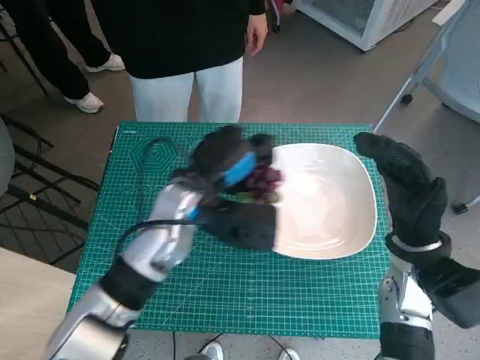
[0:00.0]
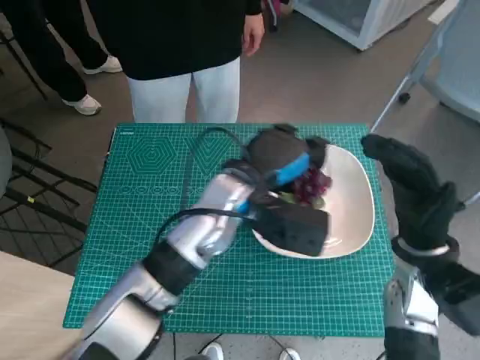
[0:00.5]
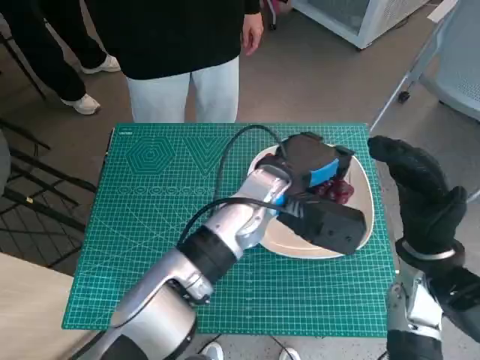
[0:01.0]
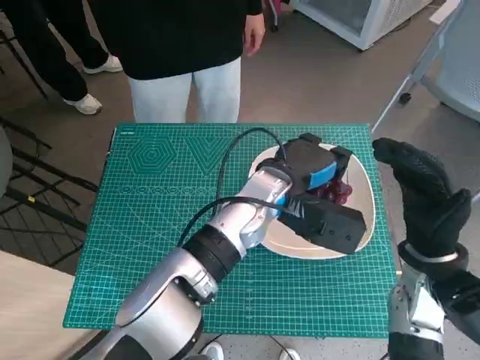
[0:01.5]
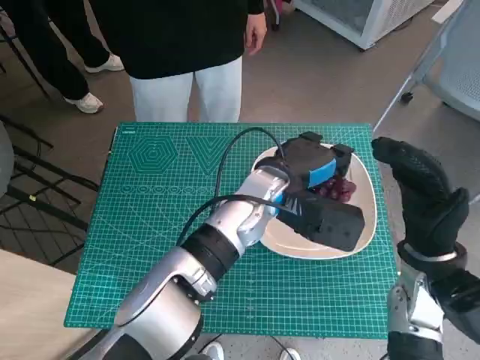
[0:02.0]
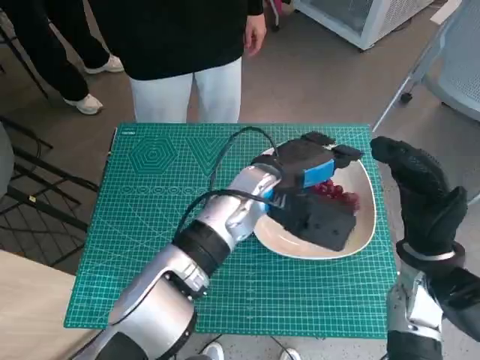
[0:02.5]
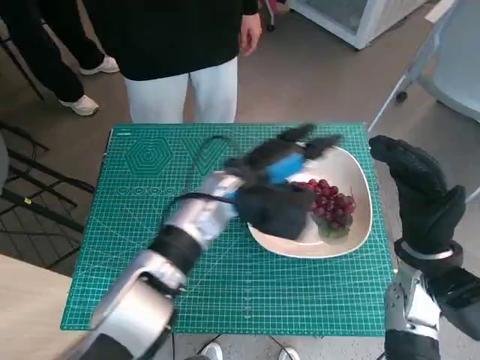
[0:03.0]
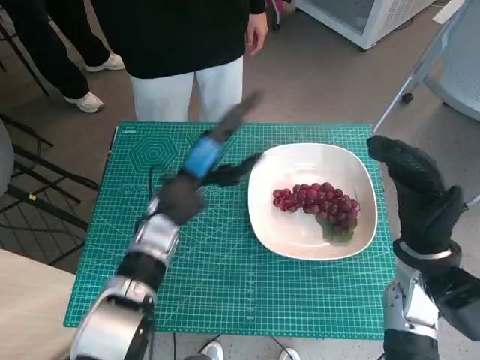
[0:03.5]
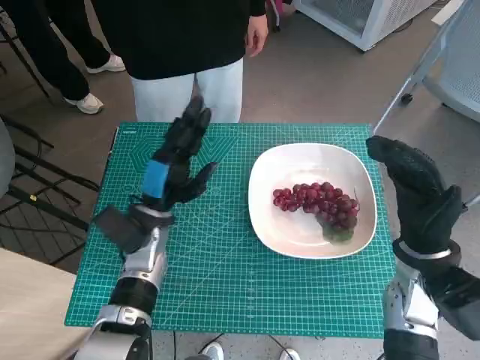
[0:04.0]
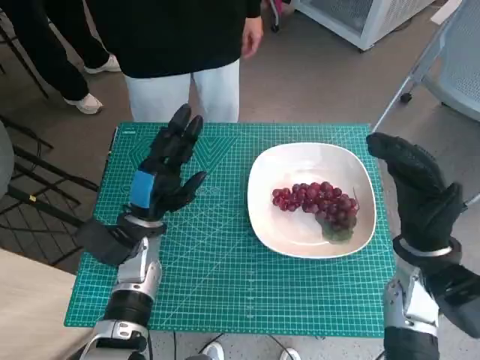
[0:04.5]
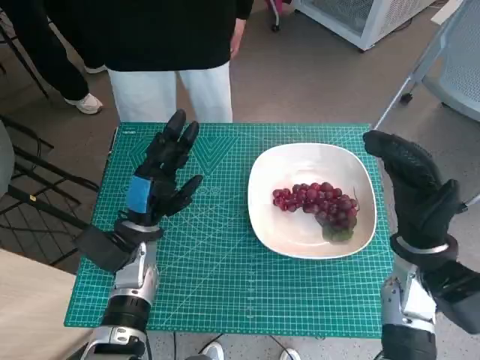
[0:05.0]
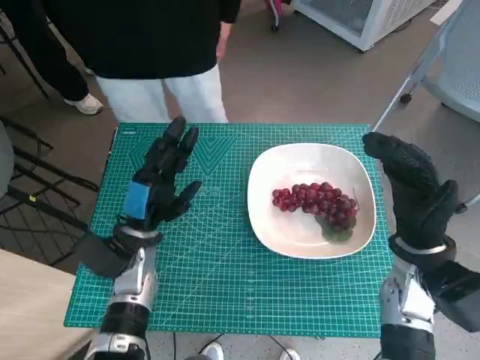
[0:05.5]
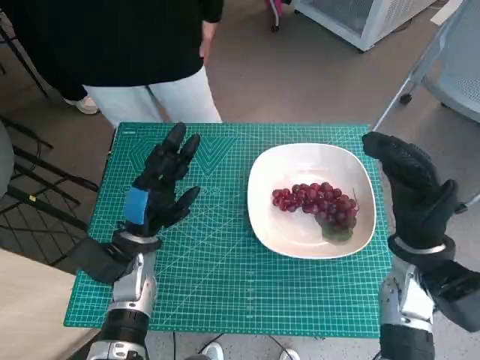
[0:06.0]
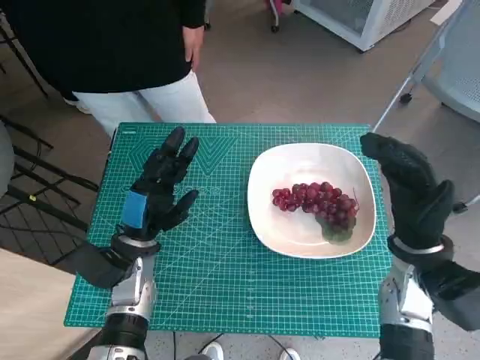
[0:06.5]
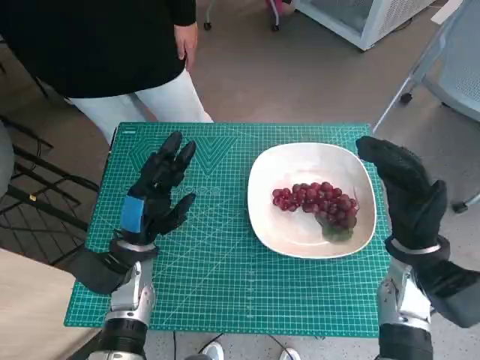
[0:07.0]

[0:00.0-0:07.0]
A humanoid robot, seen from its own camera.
Task of the whole recording: Pick up the grapes and put them on the plate.
Step, 0:00.0 to 0:02.5: Place the grapes in the plate with left hand.
0:00.0 to 0:02.0: The left hand travels to the right by approximately 10 cm.
0:02.0 to 0:03.5: The left hand goes approximately 15 cm to the left.
0:03.5 to 0:05.0: The left hand moves to the left and backward, some 10 cm.
0:05.0 to 0:07.0: The hands stay close to where they were, moving slightly.

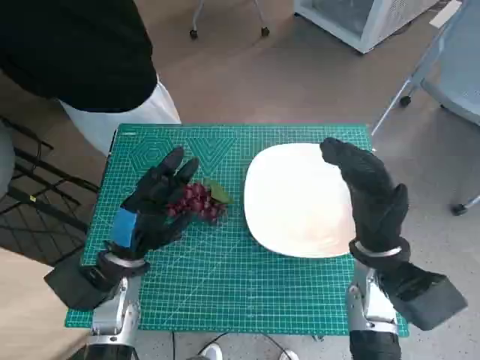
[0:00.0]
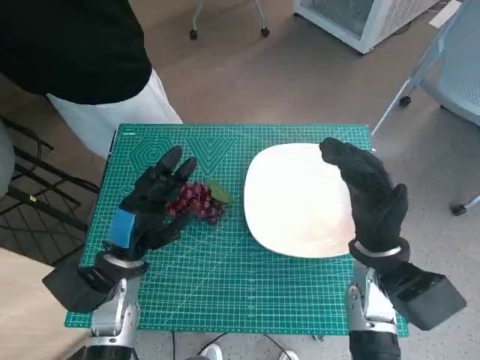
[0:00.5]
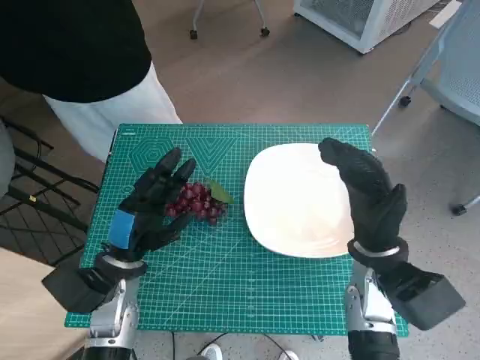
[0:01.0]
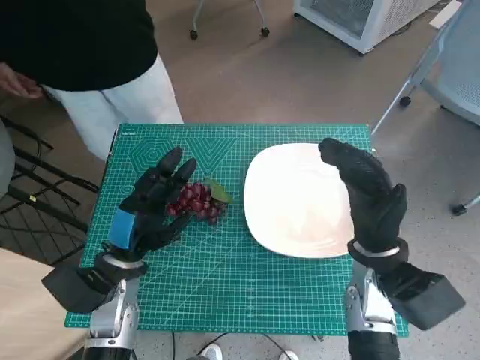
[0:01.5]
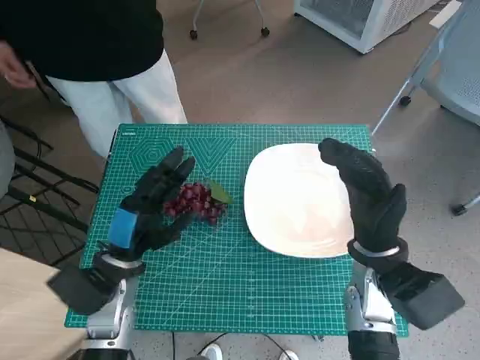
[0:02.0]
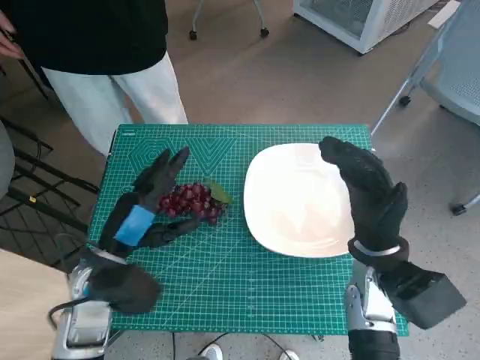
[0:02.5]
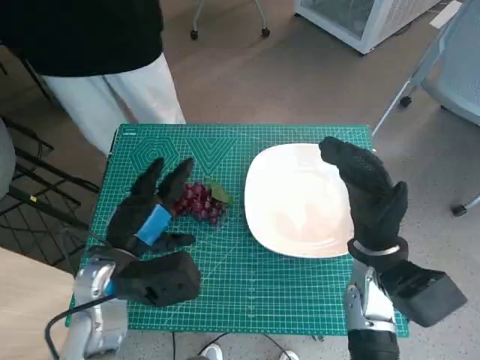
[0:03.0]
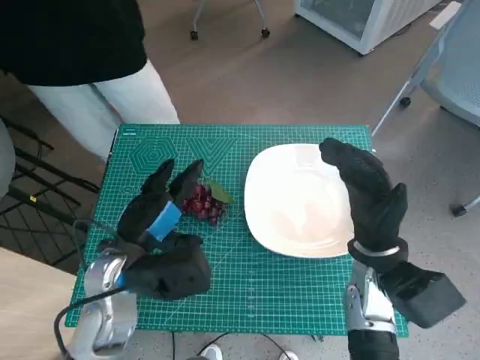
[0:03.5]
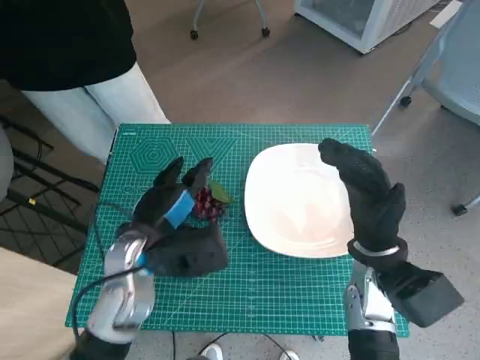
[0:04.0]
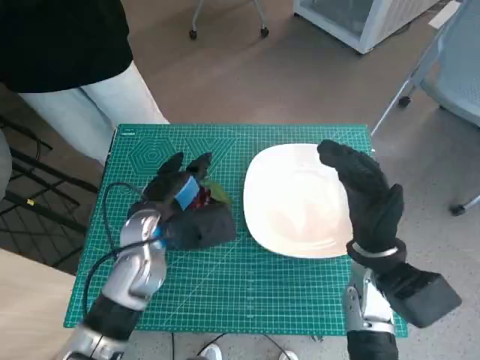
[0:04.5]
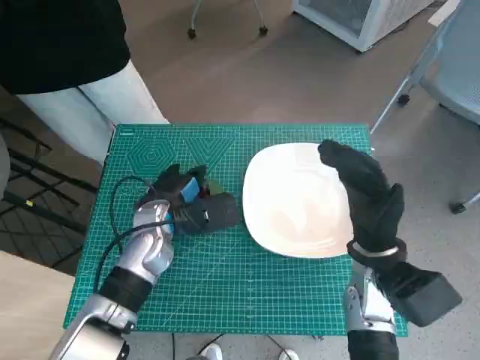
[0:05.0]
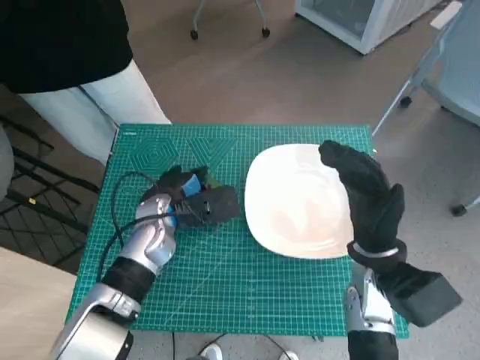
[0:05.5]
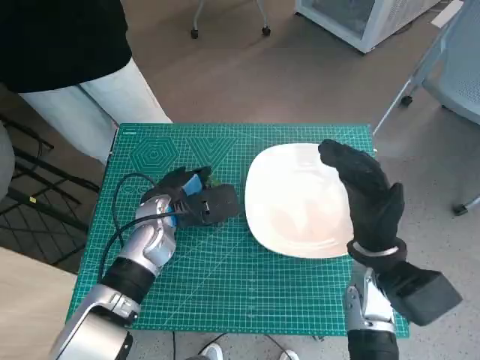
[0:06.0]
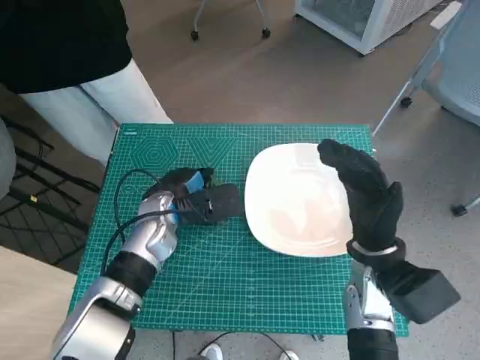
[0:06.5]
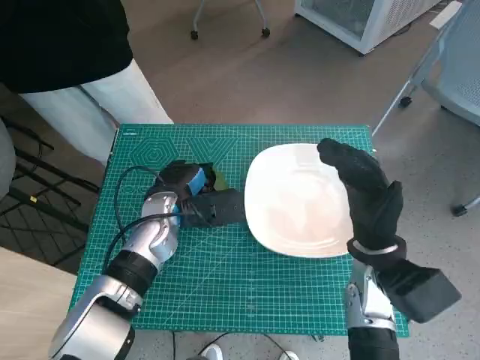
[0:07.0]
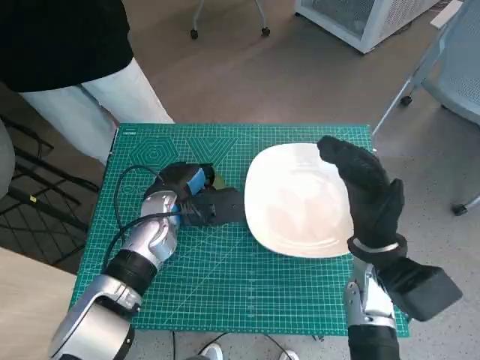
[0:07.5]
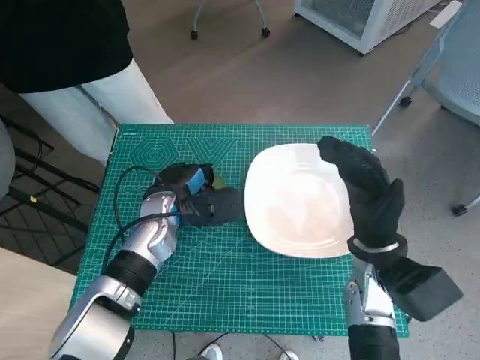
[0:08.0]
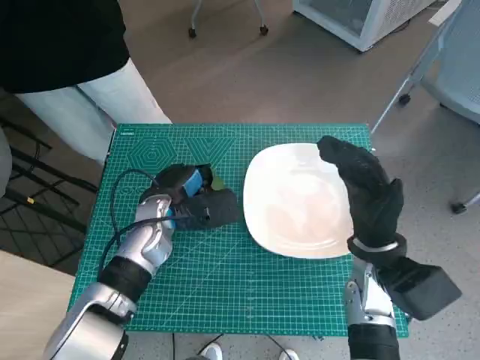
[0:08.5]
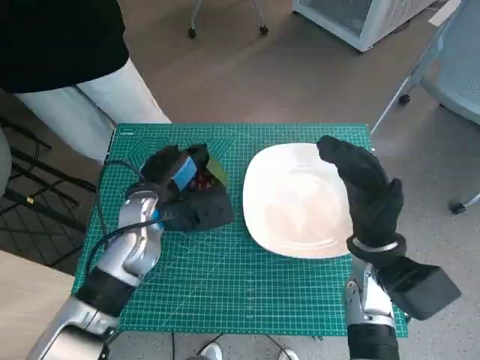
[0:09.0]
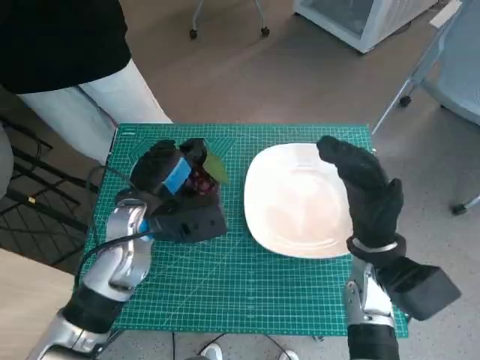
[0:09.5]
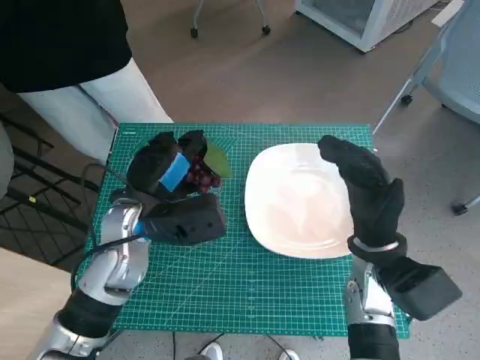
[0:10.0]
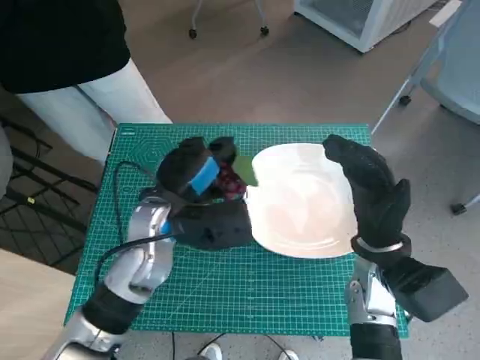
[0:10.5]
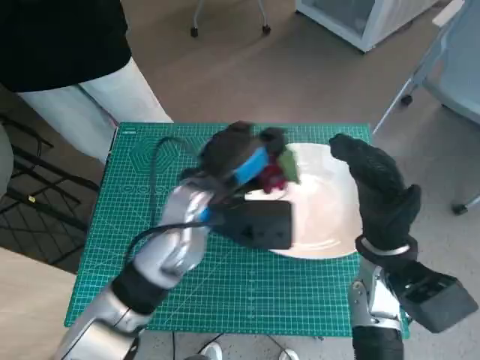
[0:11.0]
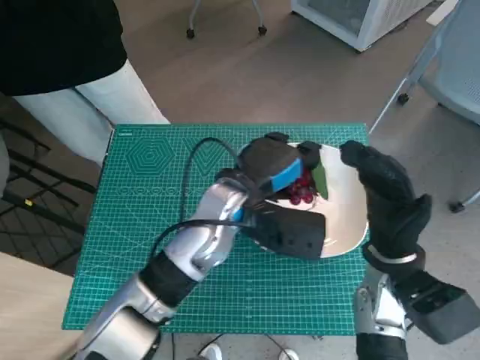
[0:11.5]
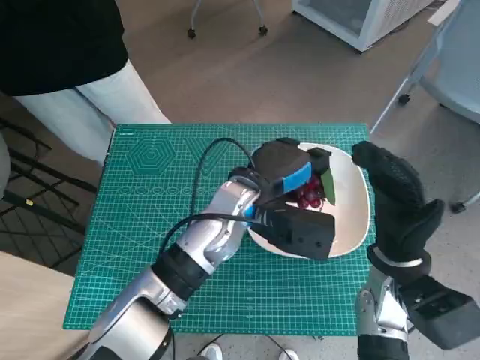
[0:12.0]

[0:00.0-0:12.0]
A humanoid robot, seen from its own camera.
Task of the whole recording: Pick up the grapes and put them on the plate.
Step, 0:00.0 to 0:05.0: Grasp the grapes with left hand.
0:02.0 to 0:04.0: The left hand heads upward, covering roughly 5 cm.
0:04.0 to 0:06.0: The left hand is displaced forward by some 10 cm.
0:06.0 to 0:08.0: There are only small adjustments of the hands.
0:08.0 to 0:10.0: The left hand heads upward and backward, covering some 10 cm.
0:10.0 to 0:12.0: The left hand shifts roughly 15 cm to the right.

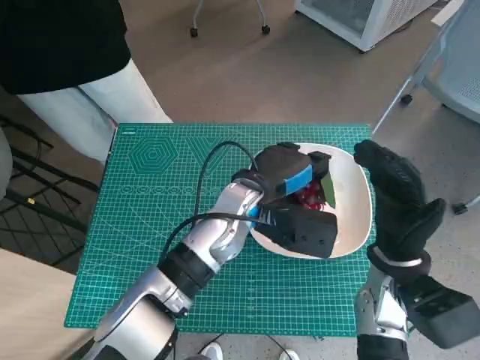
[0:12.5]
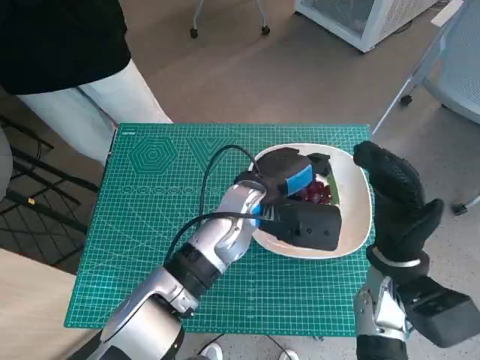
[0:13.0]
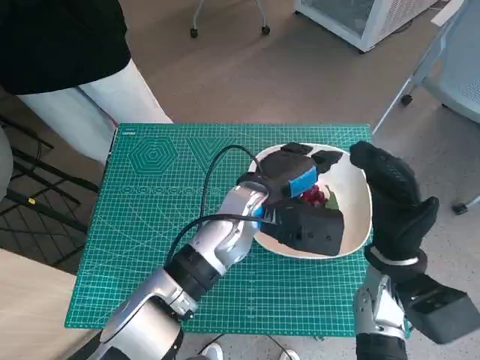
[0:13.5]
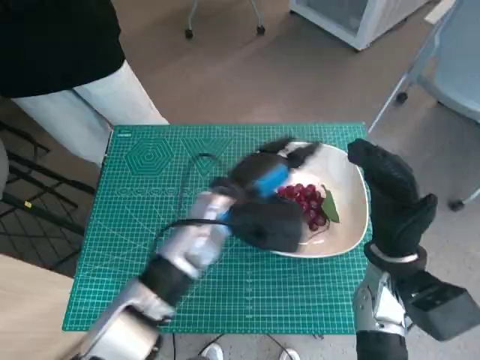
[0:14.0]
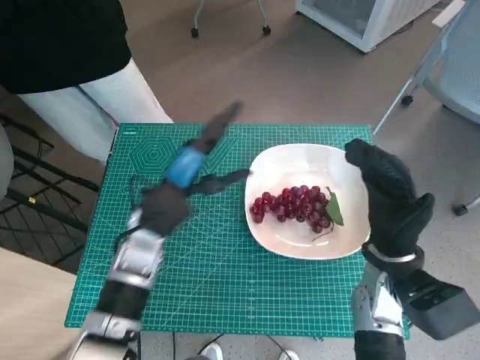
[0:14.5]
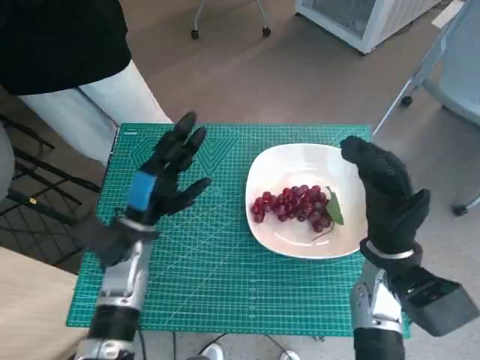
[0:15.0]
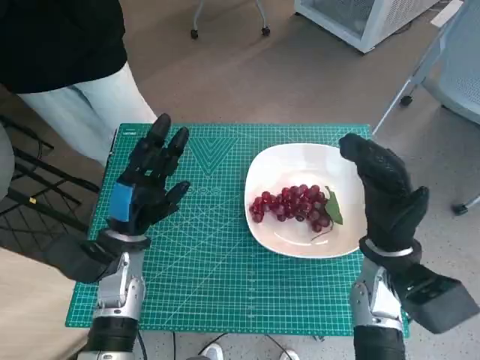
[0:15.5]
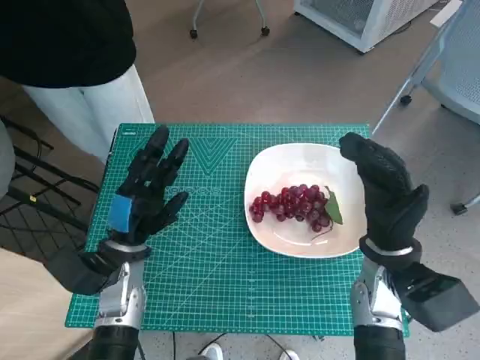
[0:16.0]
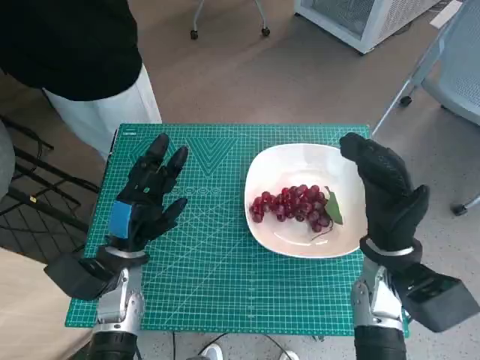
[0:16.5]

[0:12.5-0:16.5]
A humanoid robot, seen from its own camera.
Task of the whole recording: Pick up the grapes and put them on the plate.
0:12.5 to 0:14.5: The left hand heads to the left, covering roughly 10 cm.
0:14.5 to 0:16.5: The left hand heads downward, to the left and backward, covering approximately 10 cm.

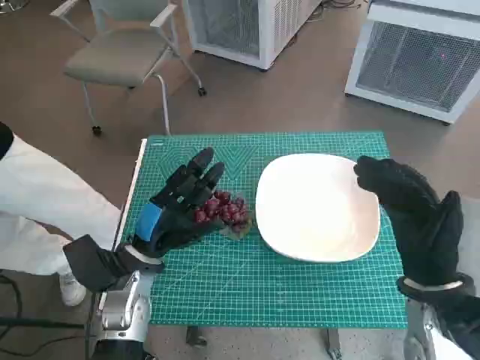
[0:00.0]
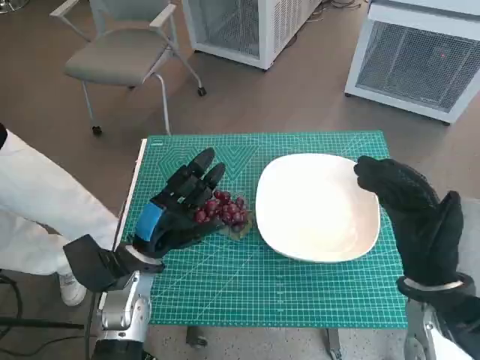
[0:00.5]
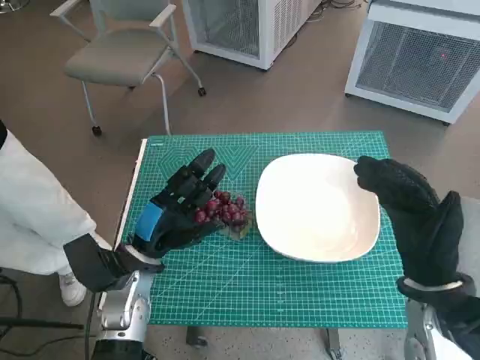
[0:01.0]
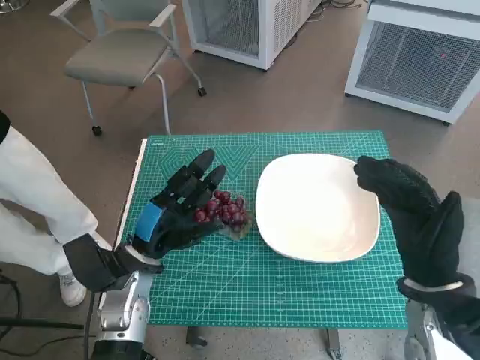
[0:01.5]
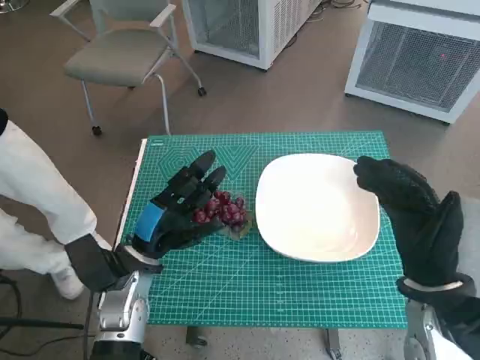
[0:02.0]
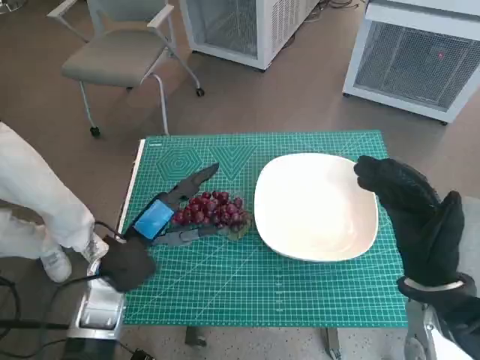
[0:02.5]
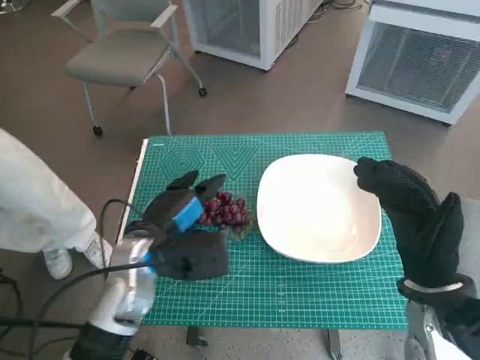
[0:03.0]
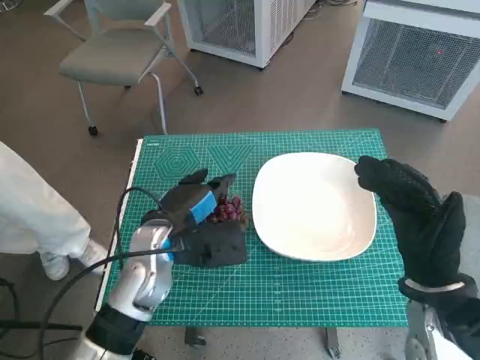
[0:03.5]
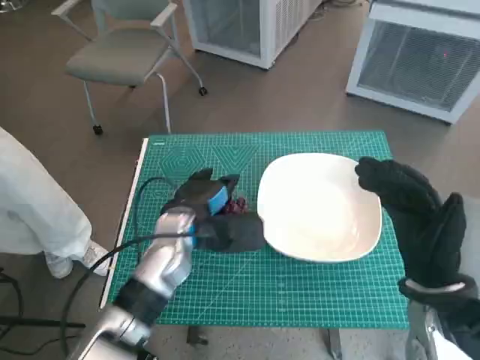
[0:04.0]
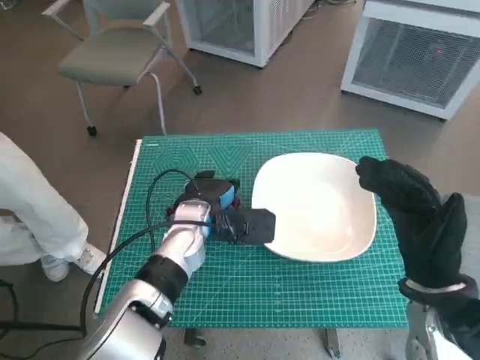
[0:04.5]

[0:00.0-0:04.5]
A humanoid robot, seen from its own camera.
Task of the whole recording: Pick up the grapes and put them on the plate.
0:02.0 to 0:04.5: The left hand moves to the right and forward, roughly 10 cm.
